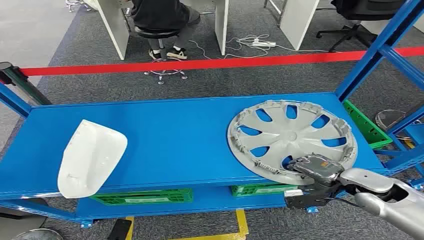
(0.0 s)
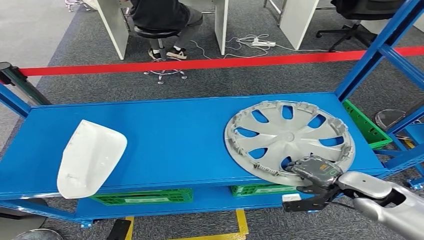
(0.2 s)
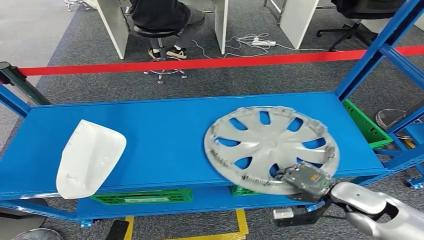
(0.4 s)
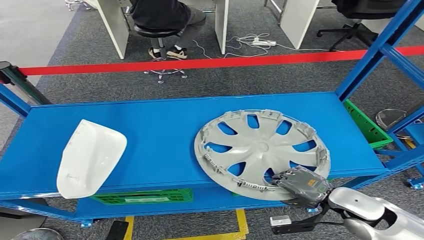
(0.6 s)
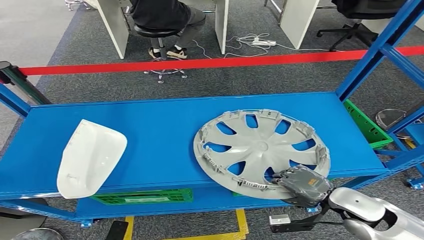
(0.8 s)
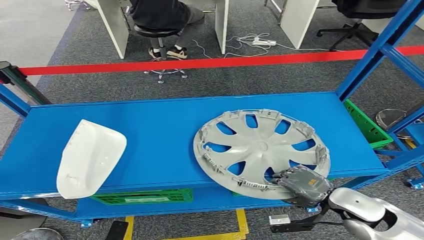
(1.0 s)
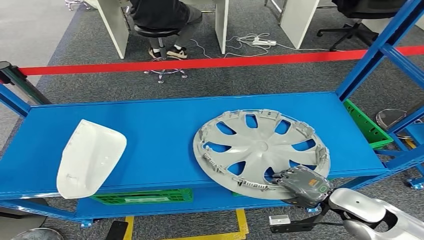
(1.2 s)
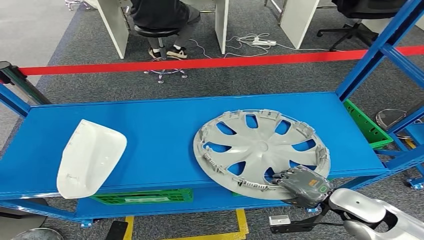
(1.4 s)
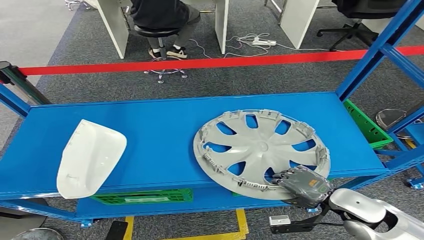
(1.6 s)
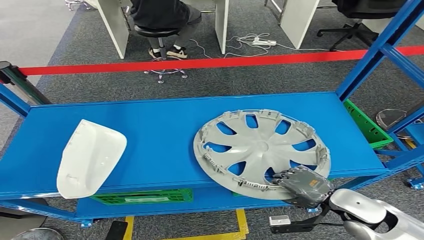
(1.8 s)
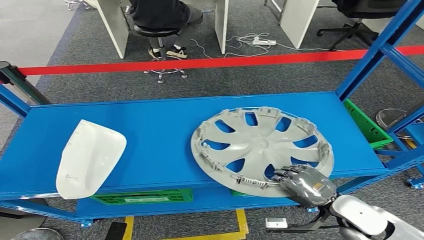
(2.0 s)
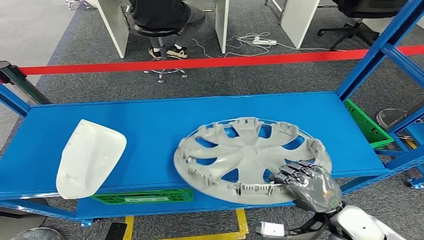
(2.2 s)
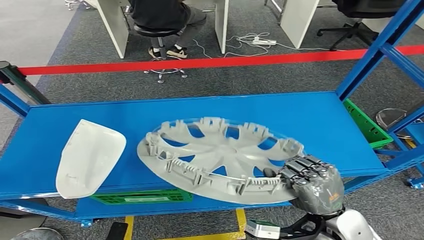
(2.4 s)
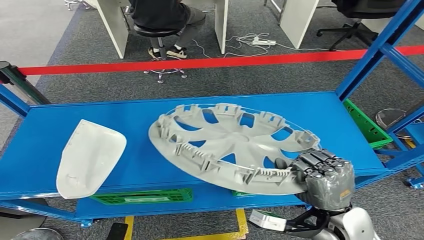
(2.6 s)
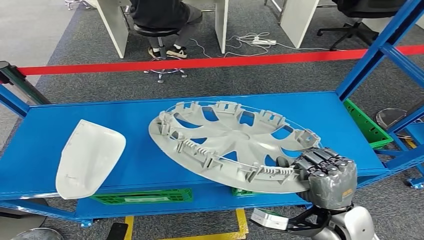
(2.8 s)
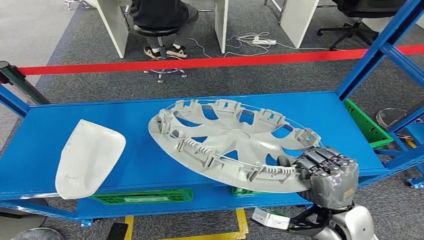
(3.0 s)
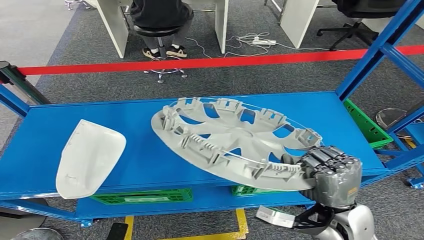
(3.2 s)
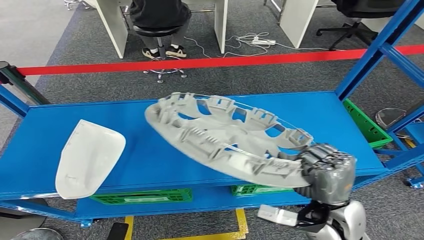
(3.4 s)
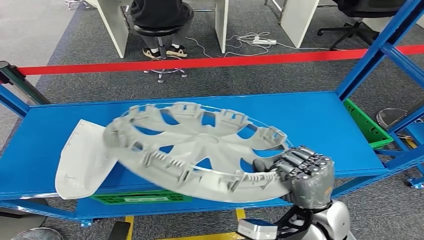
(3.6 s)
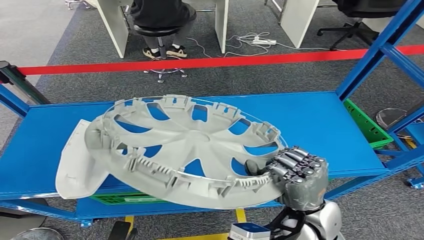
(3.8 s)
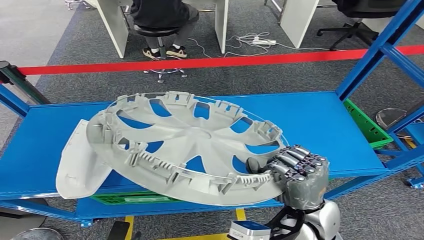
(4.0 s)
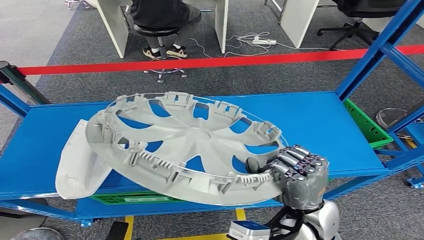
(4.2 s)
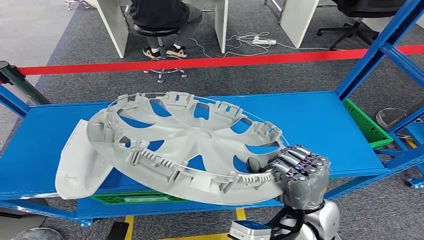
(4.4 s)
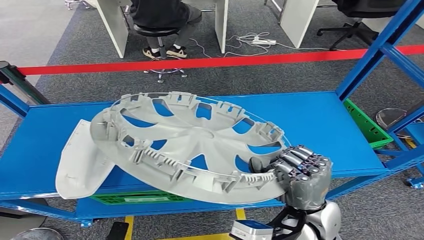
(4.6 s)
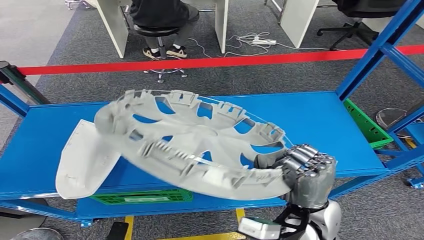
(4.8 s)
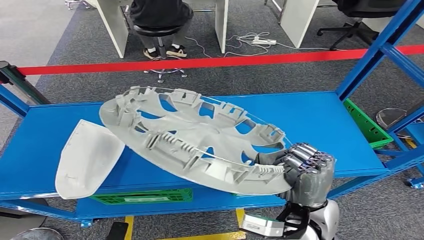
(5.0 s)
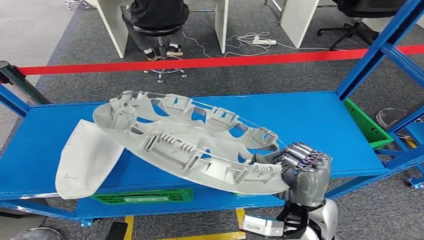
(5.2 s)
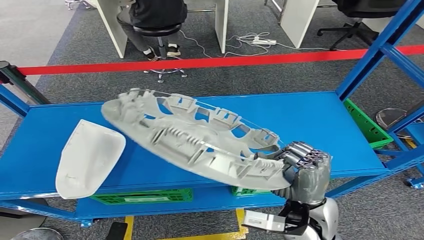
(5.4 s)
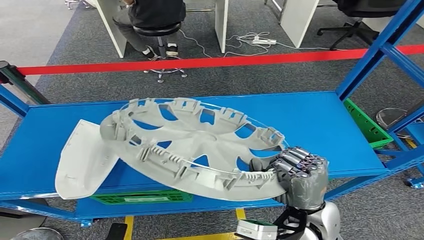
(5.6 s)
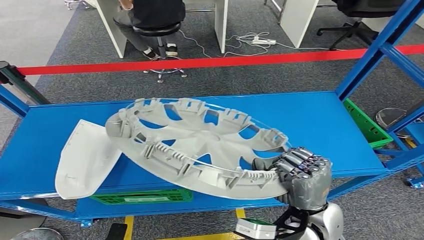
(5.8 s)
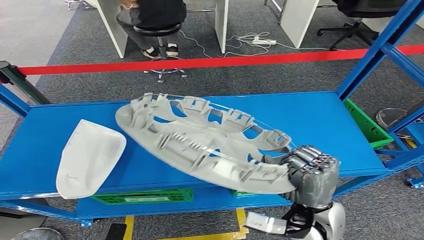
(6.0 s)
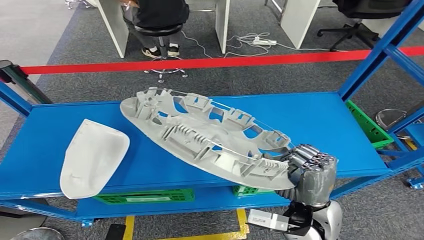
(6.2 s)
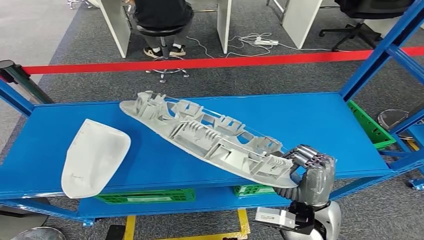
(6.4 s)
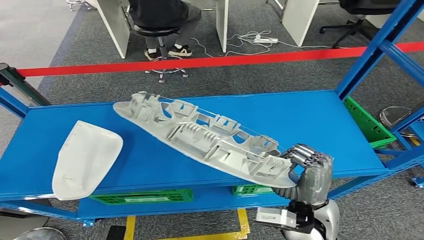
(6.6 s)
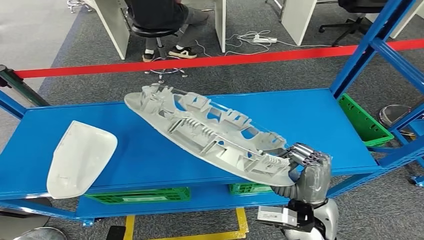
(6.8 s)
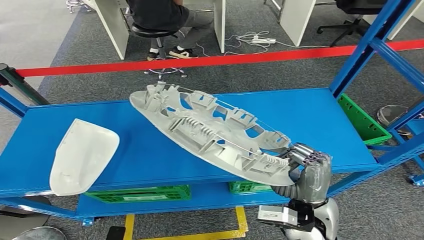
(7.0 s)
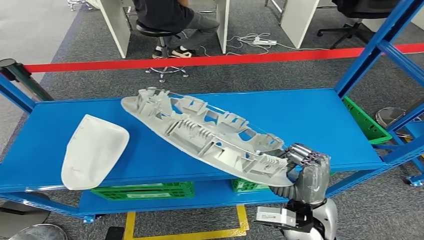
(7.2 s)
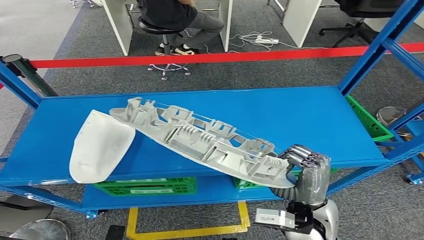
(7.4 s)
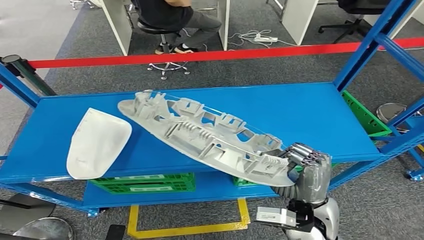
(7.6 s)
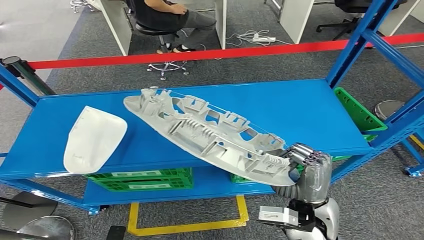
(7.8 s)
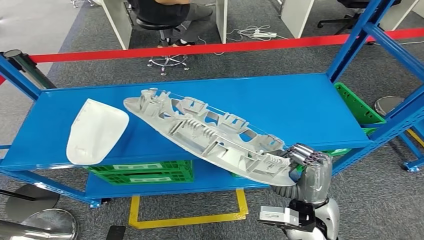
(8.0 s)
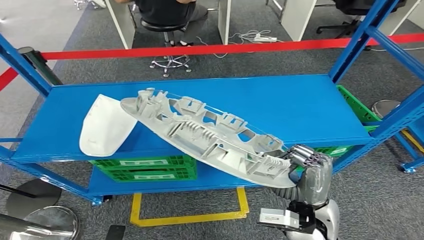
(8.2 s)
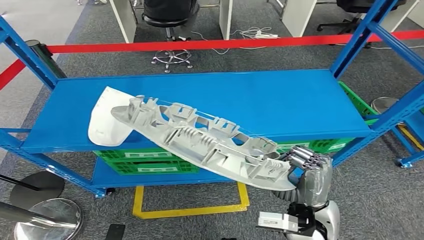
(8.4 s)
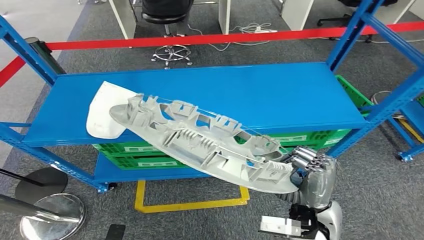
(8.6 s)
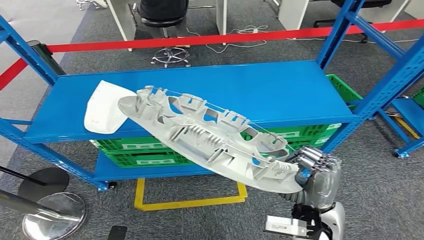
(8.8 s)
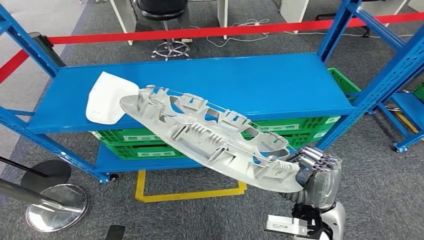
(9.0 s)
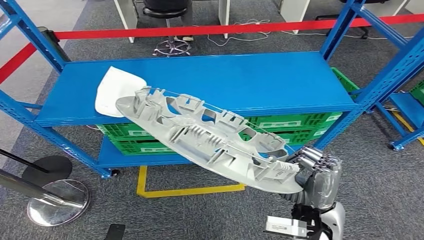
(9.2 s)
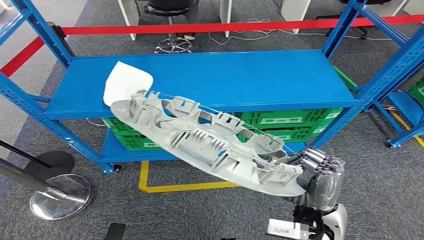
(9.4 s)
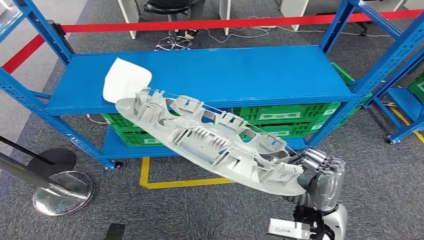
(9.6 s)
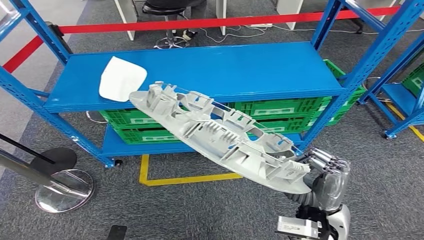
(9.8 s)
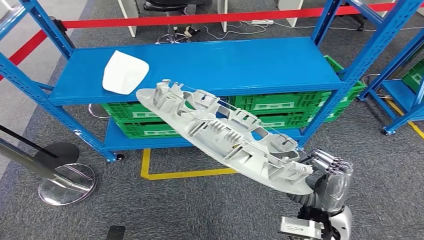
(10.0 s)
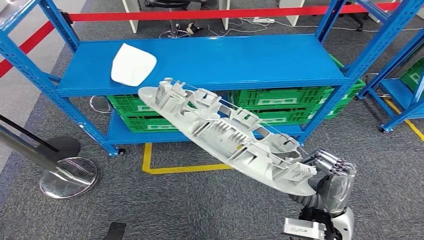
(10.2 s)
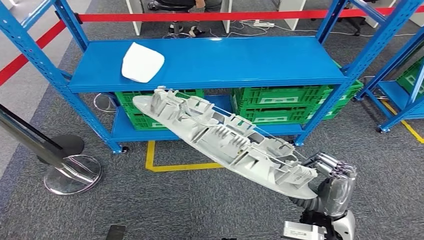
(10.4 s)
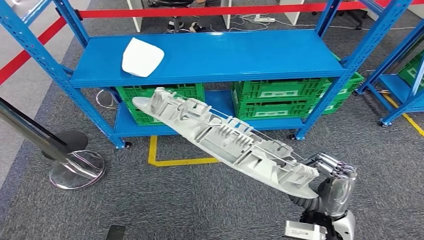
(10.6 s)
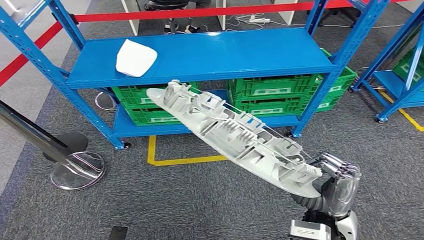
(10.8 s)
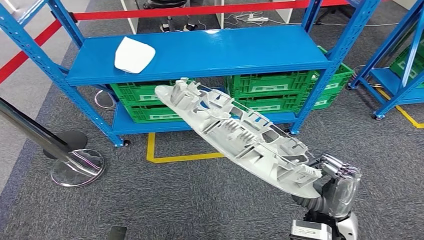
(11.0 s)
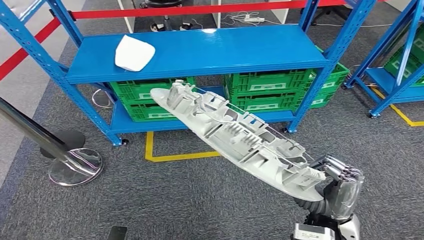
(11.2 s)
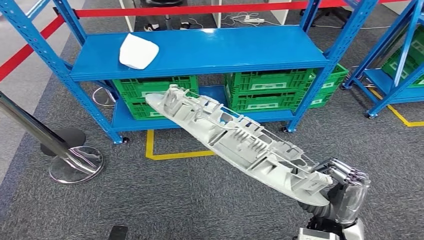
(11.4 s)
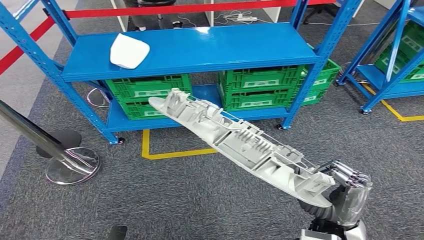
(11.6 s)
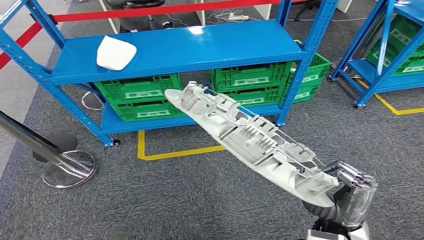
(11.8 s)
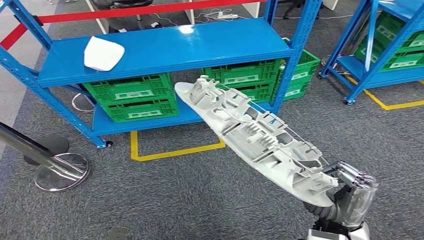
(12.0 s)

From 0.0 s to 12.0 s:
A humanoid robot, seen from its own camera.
Step, from 0.0 s to 5.0 s: Pick up the small component from the shelf.
From 1.6 s to 3.0 s: The right hand heads to the left, covering roughly 5 cm.
From 4.4 s to 6.0 s: There are only small adjustments of the hands.

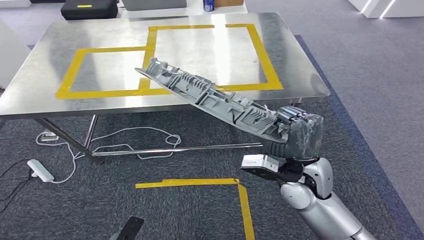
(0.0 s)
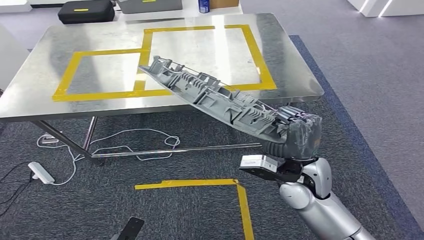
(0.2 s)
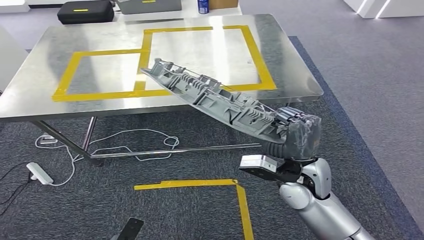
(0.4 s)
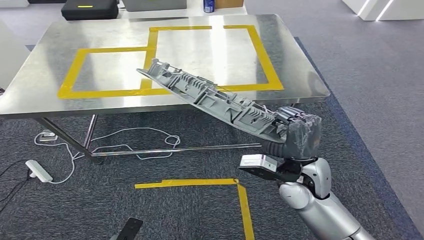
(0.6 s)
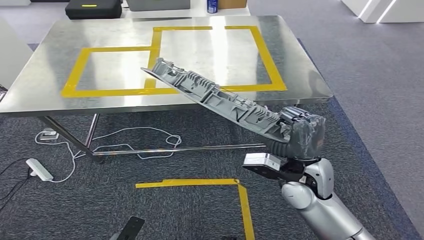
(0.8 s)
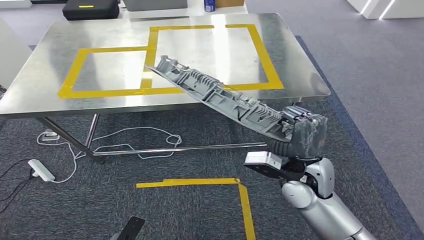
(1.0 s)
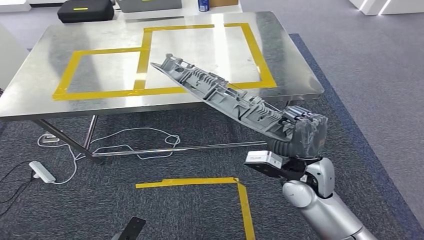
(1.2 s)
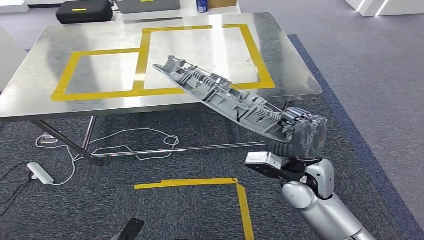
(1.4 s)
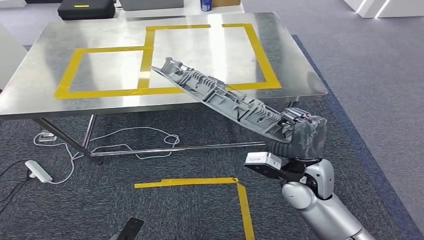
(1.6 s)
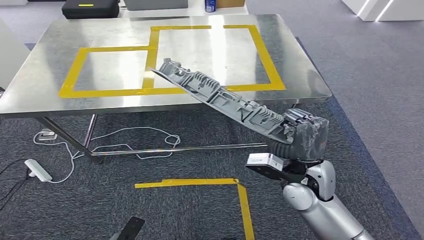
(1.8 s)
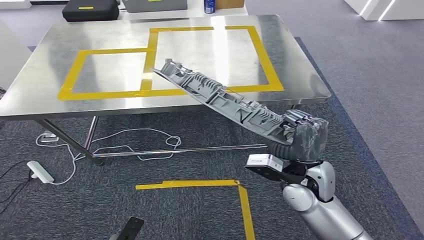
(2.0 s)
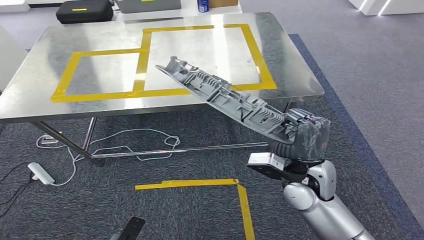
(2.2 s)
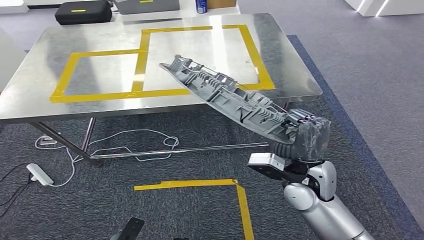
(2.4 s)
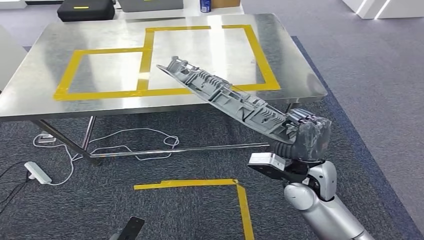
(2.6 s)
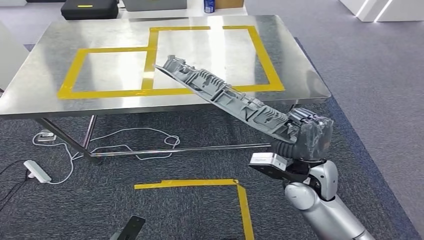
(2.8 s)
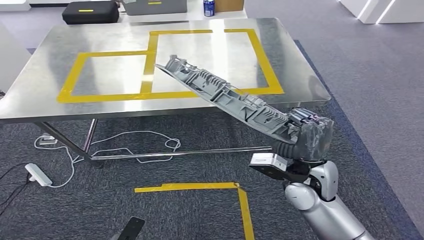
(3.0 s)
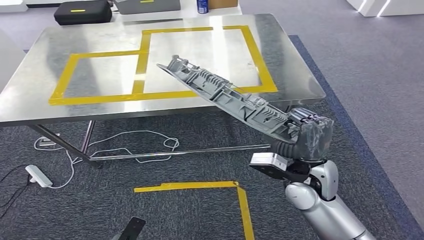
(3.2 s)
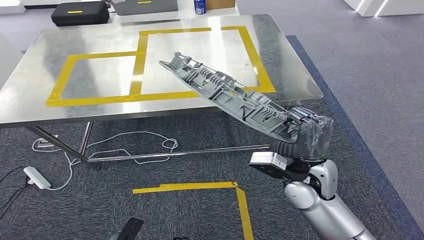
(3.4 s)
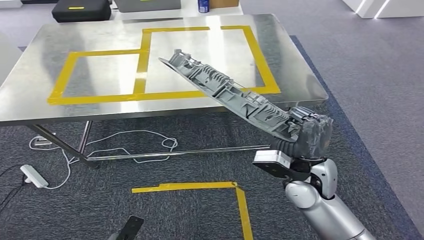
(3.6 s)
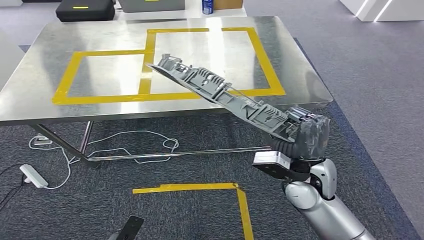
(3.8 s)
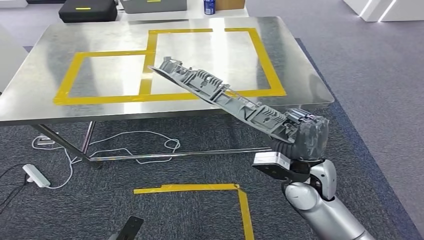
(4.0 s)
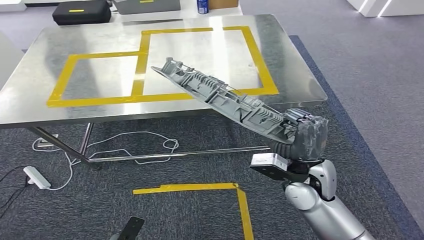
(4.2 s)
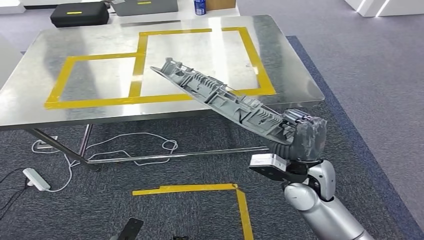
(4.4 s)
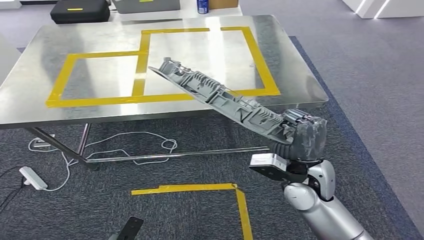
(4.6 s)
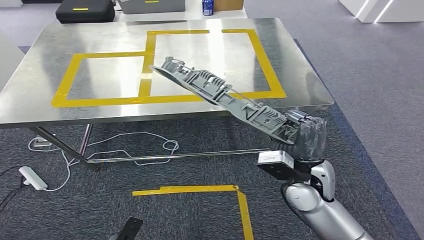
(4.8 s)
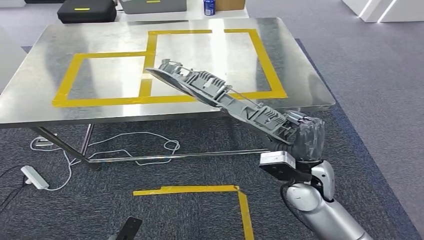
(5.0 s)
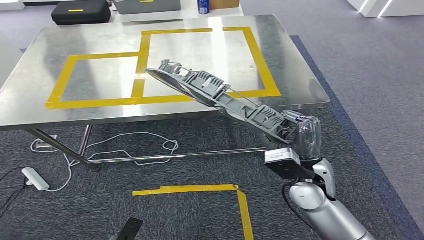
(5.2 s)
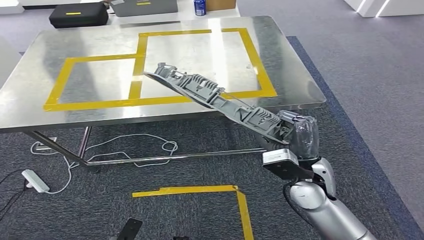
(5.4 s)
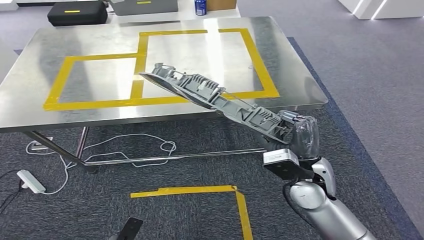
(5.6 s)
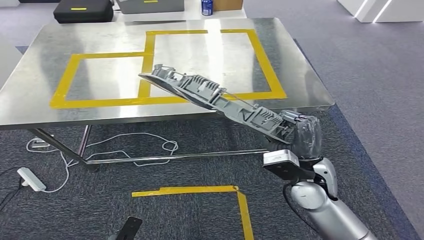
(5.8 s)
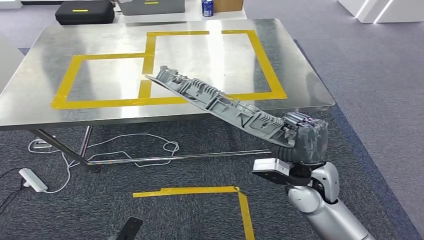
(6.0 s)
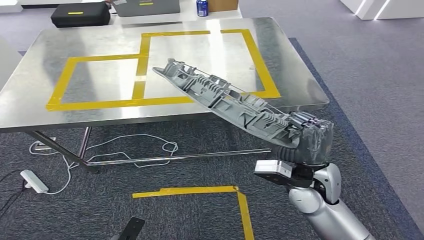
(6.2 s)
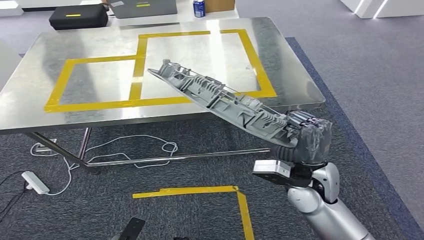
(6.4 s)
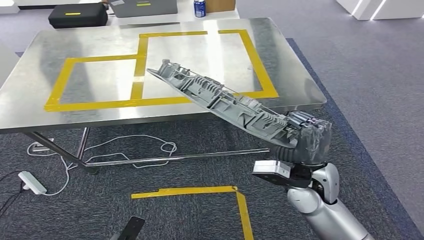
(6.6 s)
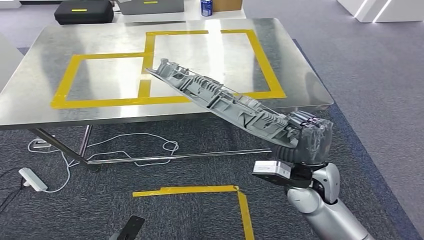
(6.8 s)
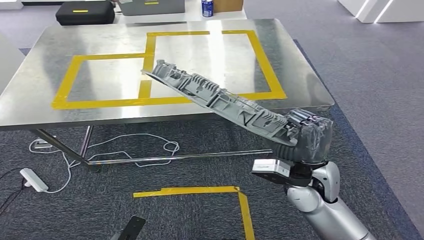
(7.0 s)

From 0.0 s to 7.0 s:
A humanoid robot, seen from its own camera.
From 0.0 s to 2.8 s: Both hands stay put.
From 2.8 s to 7.0 s: The hands move only a little.
